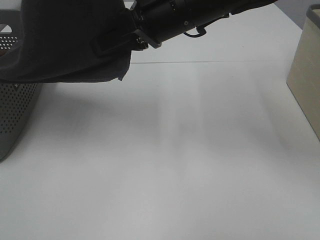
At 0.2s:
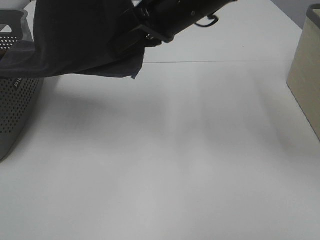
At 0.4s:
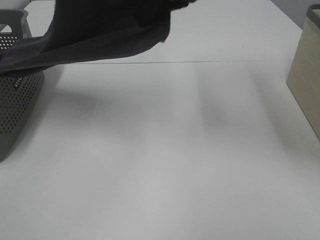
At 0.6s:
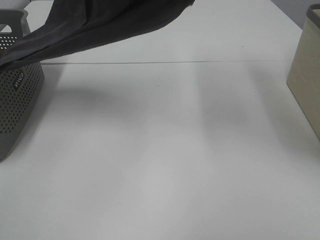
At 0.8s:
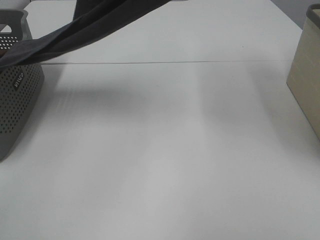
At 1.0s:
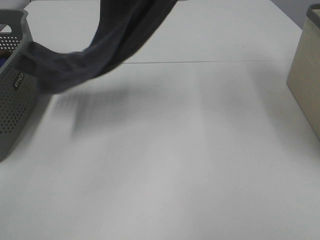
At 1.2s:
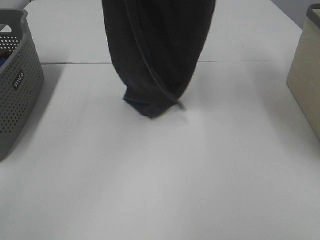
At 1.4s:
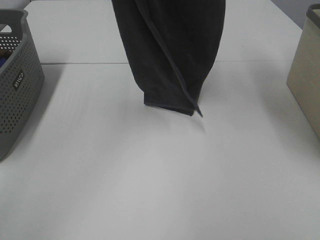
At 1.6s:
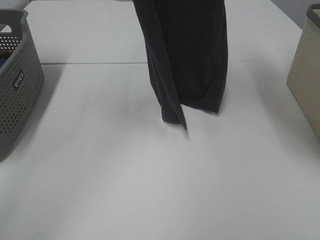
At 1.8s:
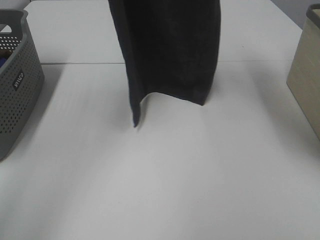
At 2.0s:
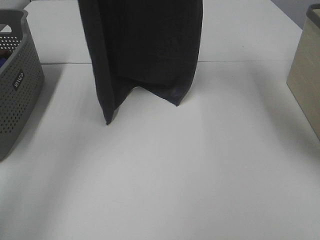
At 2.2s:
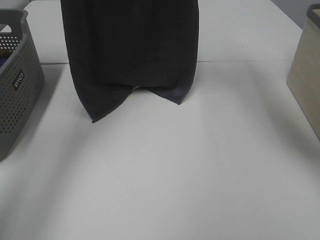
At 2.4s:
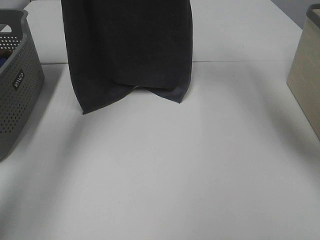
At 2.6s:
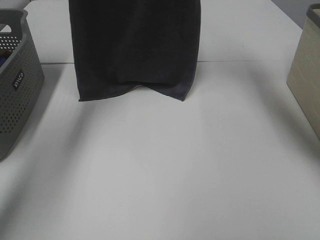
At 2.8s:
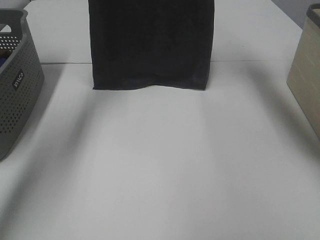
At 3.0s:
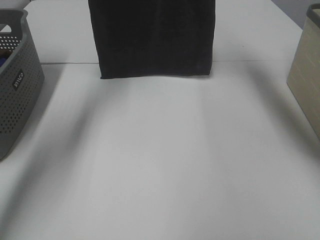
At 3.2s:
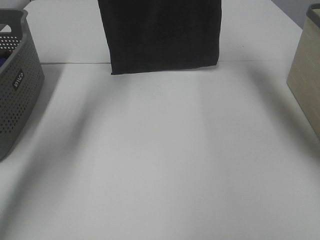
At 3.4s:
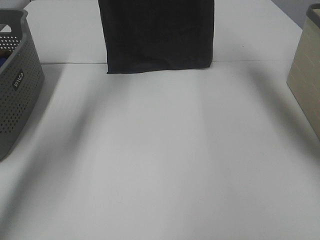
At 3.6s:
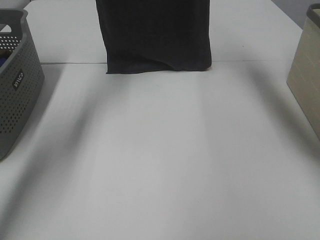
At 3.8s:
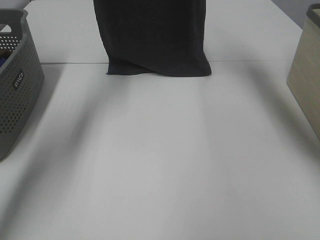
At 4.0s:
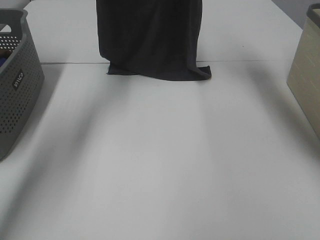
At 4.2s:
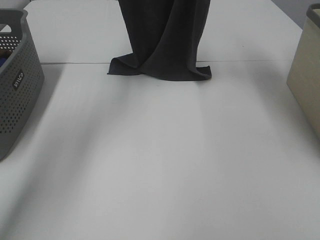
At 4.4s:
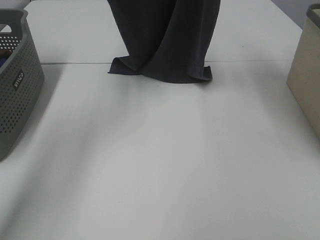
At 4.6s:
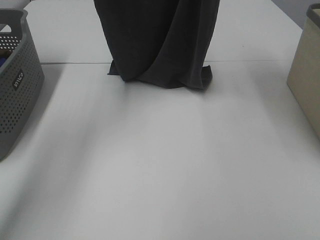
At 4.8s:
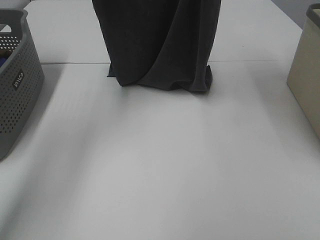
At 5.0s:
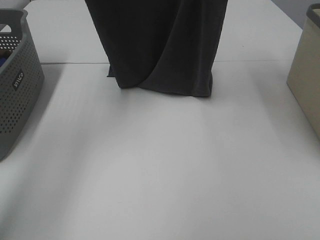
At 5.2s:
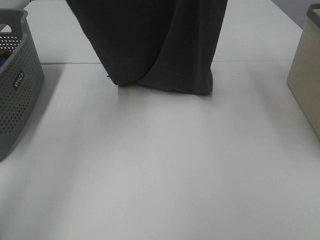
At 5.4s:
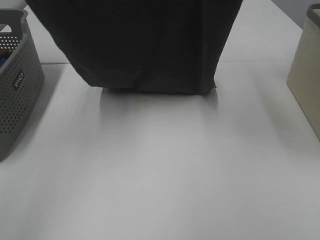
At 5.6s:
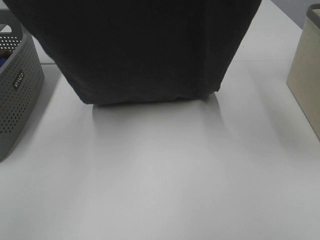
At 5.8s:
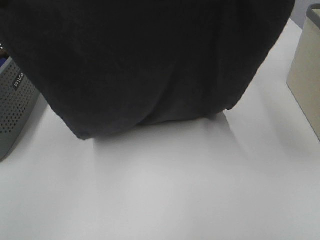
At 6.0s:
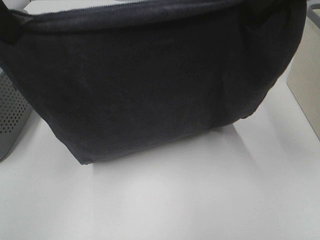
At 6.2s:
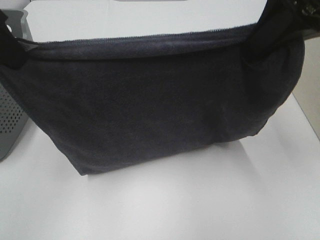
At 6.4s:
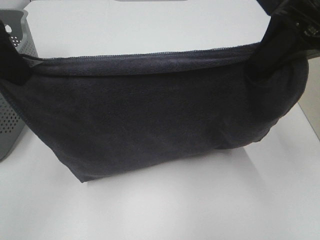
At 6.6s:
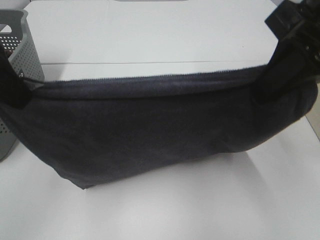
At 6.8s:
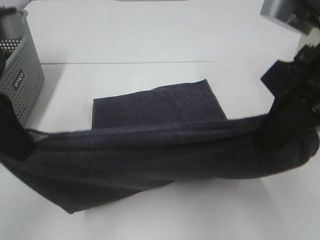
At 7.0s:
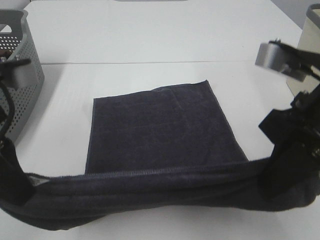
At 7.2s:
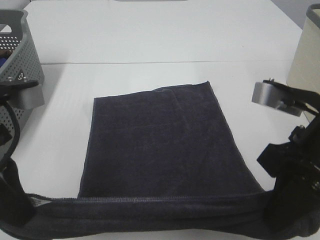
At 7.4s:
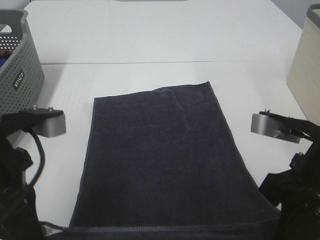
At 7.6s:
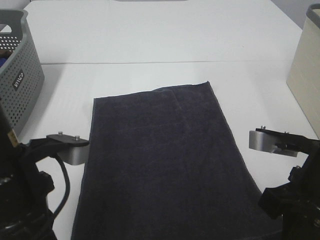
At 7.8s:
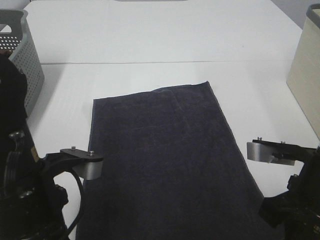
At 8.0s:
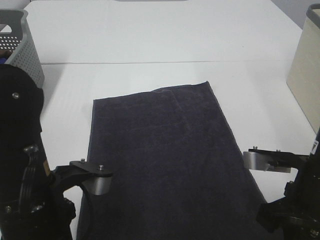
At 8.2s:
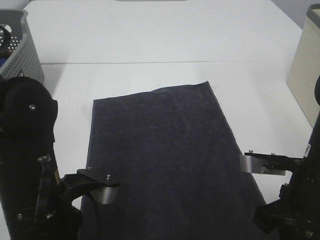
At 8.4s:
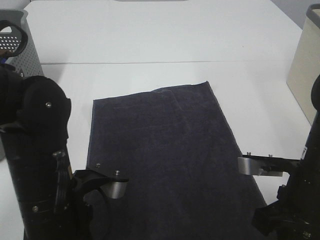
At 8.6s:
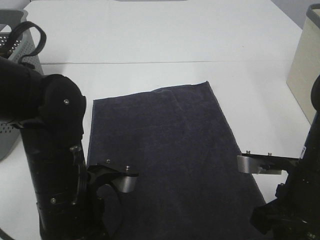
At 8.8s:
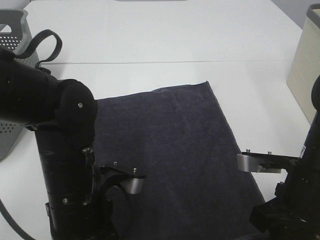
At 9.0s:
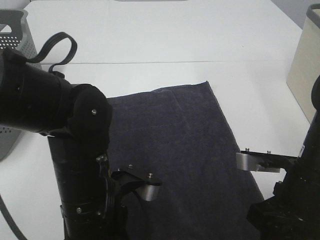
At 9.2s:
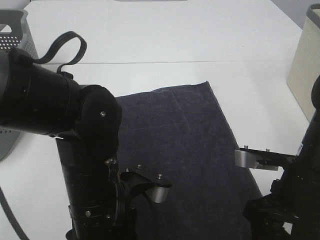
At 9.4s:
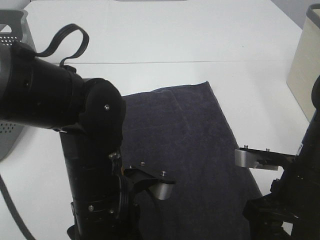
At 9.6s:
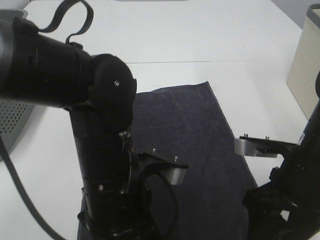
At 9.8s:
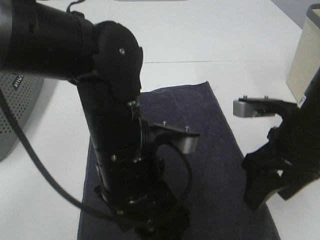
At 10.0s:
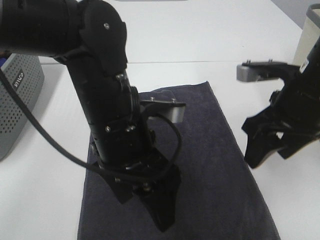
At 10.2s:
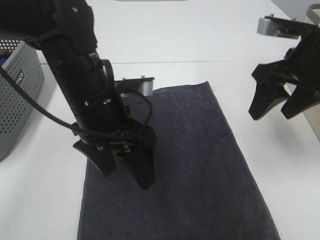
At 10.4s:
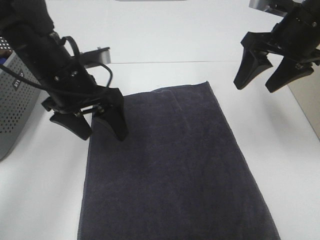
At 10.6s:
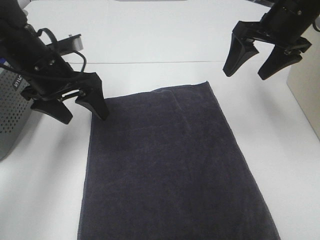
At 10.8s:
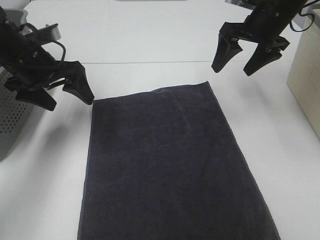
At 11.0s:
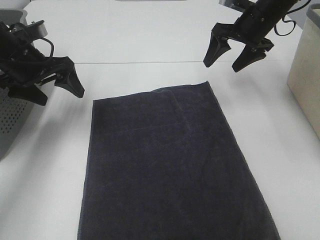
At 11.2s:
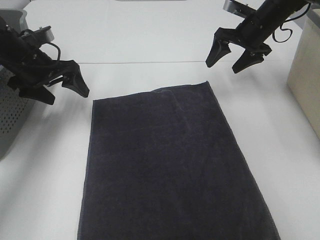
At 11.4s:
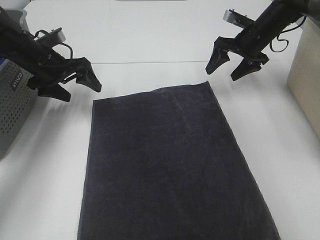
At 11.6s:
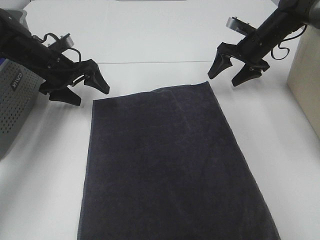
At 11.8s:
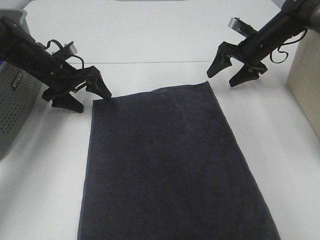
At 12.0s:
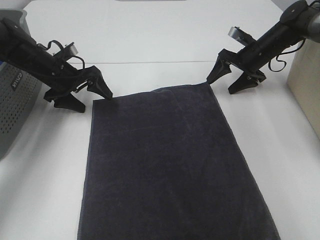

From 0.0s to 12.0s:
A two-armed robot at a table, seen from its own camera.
Task of the whole recording: Remove the towel and place it.
Step, from 0.4s to 5.2s: Left hand: spread the grey towel flat on the table.
Step, from 0.4s to 5.2s: Right hand: spread the grey towel flat on the table.
From 0.0s to 1.6s: The right gripper shifts roughly 25 cm upward; the left gripper travels forward by about 10 cm.
From 1.6s to 3.0s: The left gripper shifts approximately 15 cm forward. The right gripper heads forward and downward, covering some 10 cm.
From 3.0s to 4.4s: Both grippers travel together backward, roughly 5 cm.
From 4.4s to 6.0s: The left gripper is displaced backward by about 20 cm. The right gripper moves backward and downward, approximately 20 cm.
From 6.0s to 7.6s: The left gripper shifts approximately 20 cm downward and backward; the right gripper shifts approximately 20 cm downward.
From 7.6s to 9.0s: The right gripper moves roughly 5 cm, and opens up, while the left gripper is displaced to the right and downward by roughly 10 cm, and opens its fingers.
From 9.0s to 10.4s: The right gripper is displaced forward and upward by roughly 20 cm; the left gripper moves forward, to the left and upward, roughly 20 cm, and opens up.
From 10.4s to 12.0s: The left gripper travels forward, downward and to the left by roughly 20 cm; the right gripper moves forward and downward, some 25 cm.

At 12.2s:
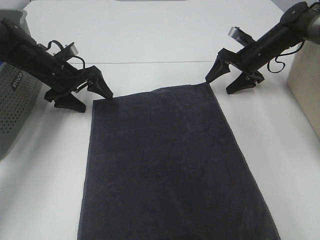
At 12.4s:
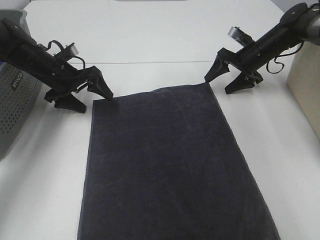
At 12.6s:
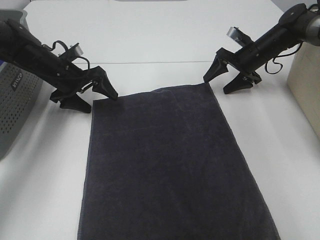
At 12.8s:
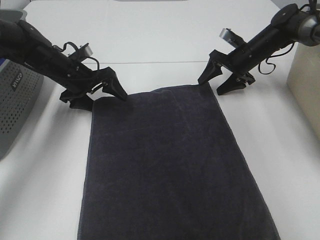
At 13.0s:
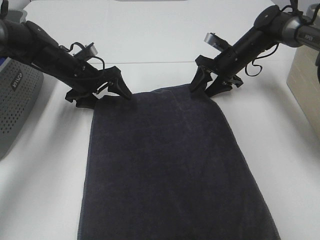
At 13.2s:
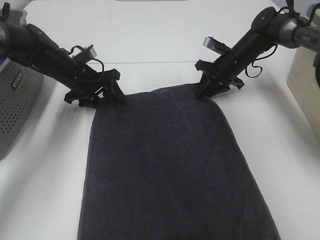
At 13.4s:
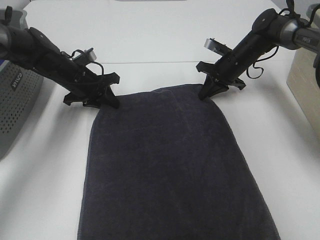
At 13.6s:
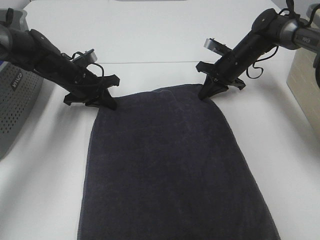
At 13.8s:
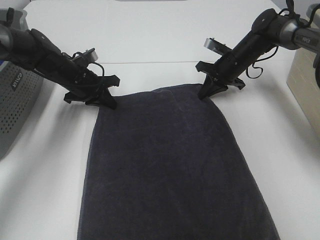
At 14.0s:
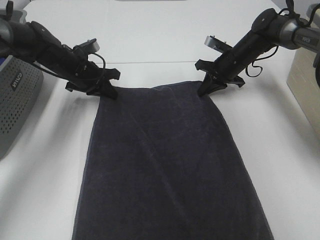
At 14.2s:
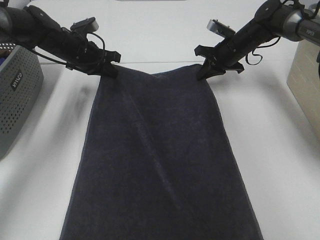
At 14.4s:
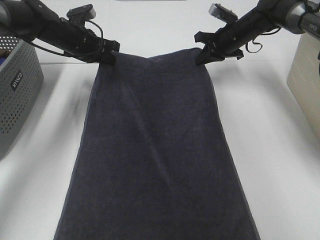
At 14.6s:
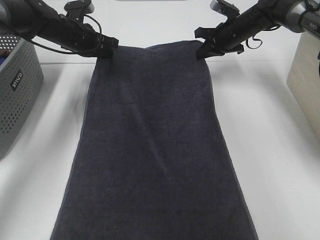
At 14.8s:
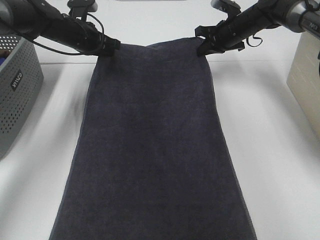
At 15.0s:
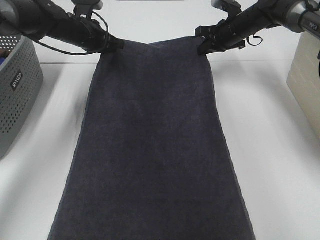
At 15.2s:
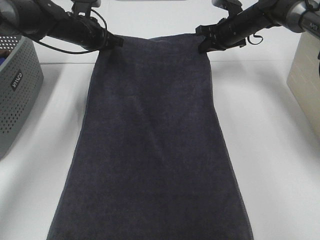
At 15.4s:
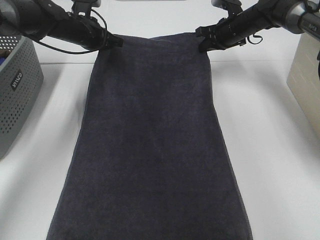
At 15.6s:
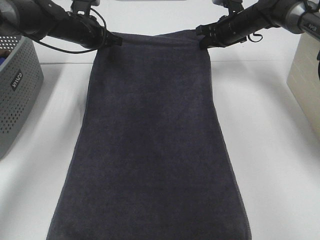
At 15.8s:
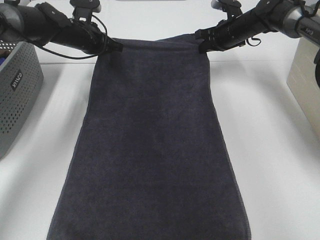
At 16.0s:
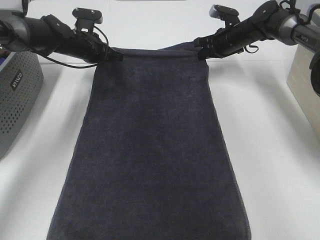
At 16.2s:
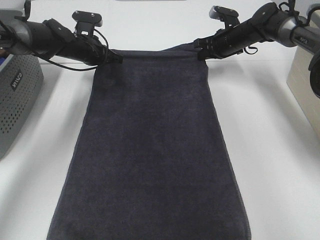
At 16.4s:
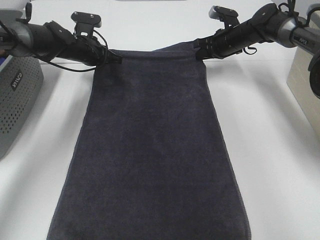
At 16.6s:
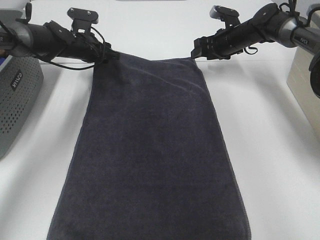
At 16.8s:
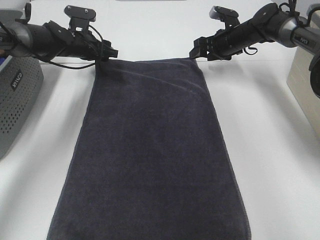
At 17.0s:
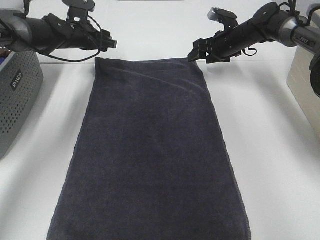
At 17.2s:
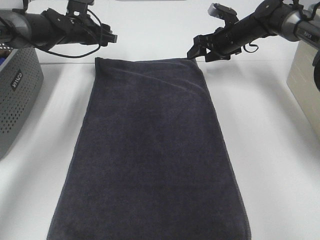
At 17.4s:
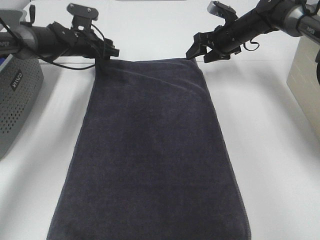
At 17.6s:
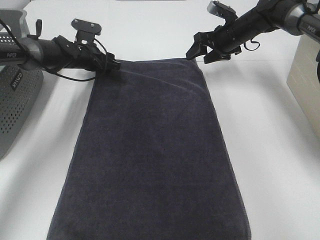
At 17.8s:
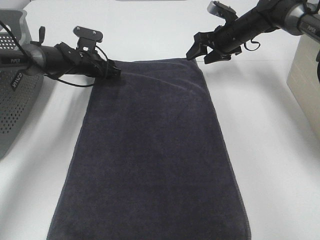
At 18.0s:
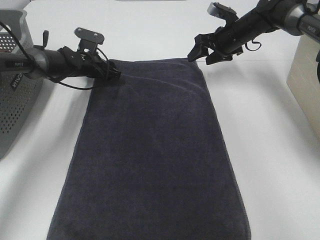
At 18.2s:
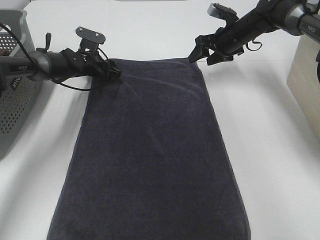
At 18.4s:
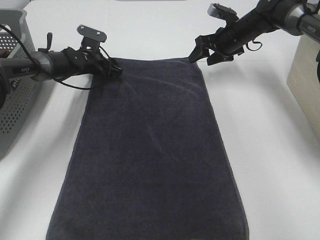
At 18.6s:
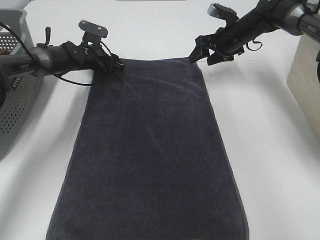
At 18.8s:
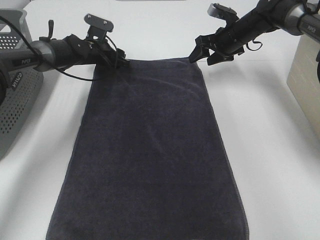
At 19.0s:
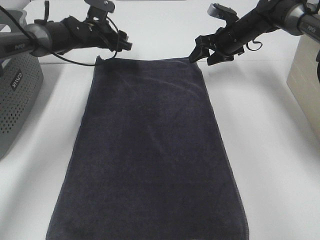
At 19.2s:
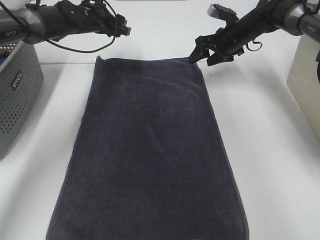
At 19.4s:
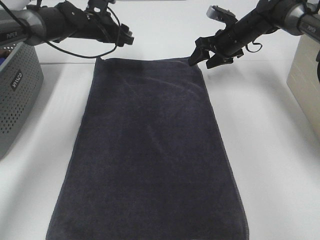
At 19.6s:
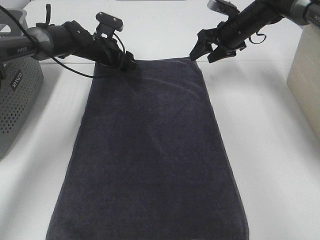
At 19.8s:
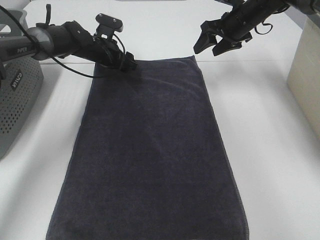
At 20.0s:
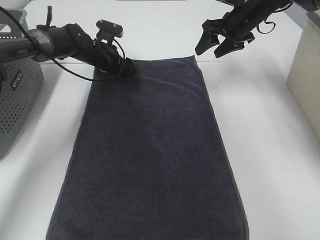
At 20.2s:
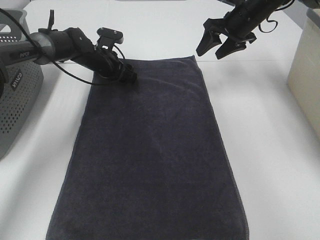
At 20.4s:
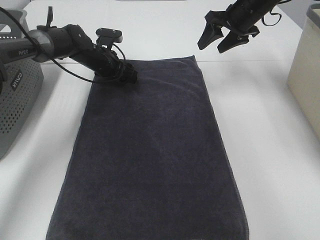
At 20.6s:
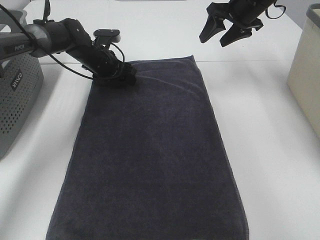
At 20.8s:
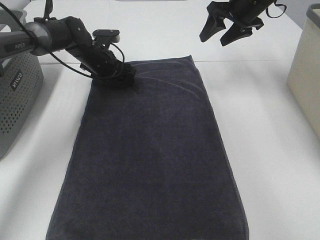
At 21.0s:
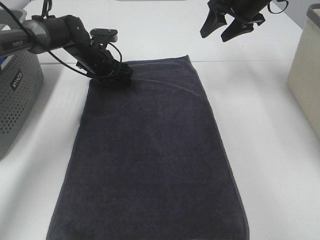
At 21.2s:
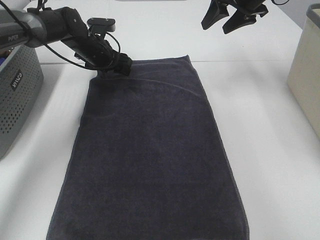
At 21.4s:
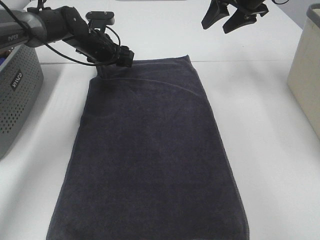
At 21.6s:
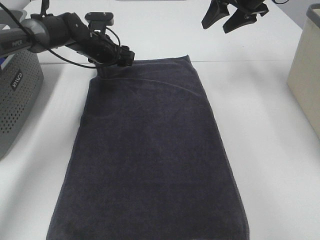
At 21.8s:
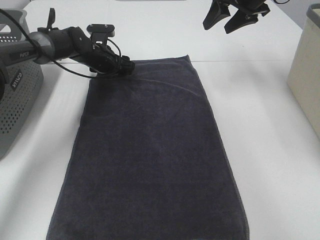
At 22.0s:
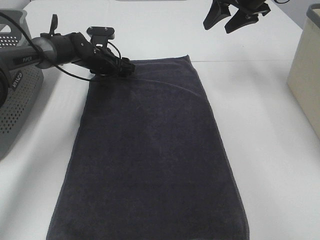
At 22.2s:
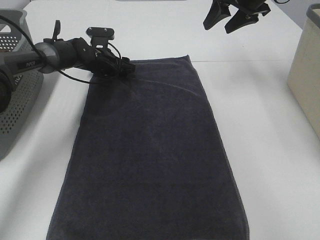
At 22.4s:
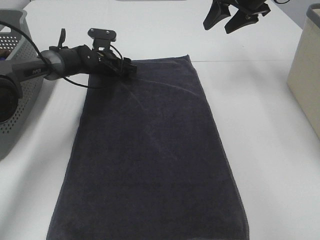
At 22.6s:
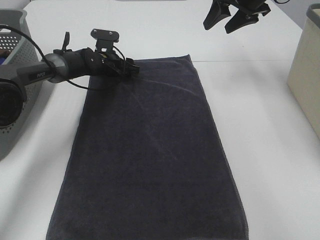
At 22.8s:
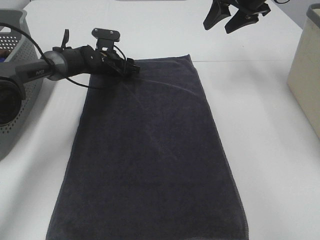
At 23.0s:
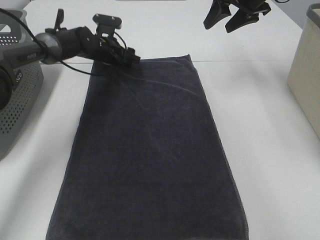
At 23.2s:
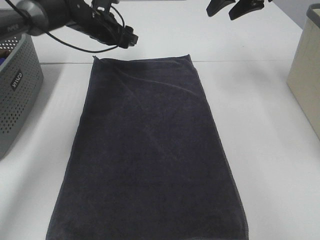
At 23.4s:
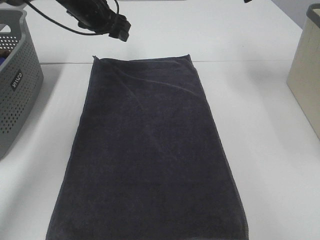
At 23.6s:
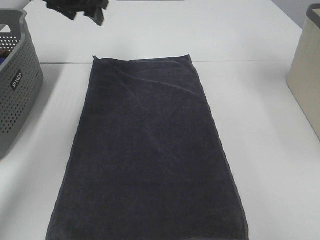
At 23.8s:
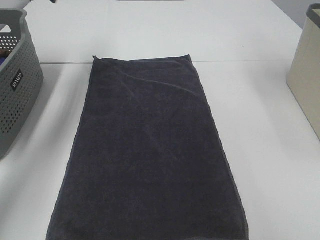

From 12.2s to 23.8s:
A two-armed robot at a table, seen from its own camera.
Task of the whole recording: Remove the towel and place it.
Step, from 12.2s to 16.0s: Left hand:adjust the gray towel.
From 12.2s to 13.6s: The left gripper closes. Meanwhile the right gripper shifts approximately 5 cm to the left, and closes.
From 13.6s to 15.0s: The right gripper shifts some 5 cm upward, while the left gripper goes approximately 10 cm upward and forward.
From 15.0s to 16.6s: The left gripper moves some 5 cm, and opens, while the right gripper opens its fingers.
From 16.6s to 18.0s: The left gripper goes some 5 cm downward.
From 18.0s to 19.4s: The left gripper travels upward by some 10 cm.
From 19.4s to 21.0s: The left gripper shifts by about 5 cm. The right gripper is displaced upward by some 10 cm.
From 21.0s to 22.4s: The left gripper ends up approximately 5 cm from where it was.
From 22.4s to 23.8s: The right gripper is displaced upward and backward by about 15 cm; the left gripper is displaced upward by approximately 30 cm.
